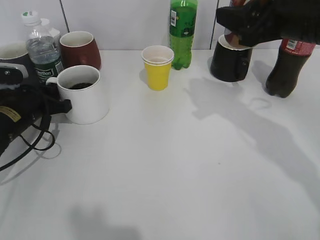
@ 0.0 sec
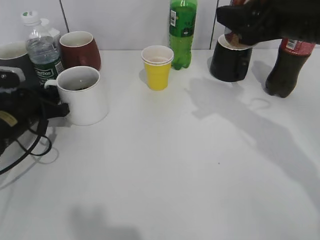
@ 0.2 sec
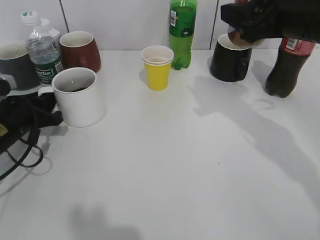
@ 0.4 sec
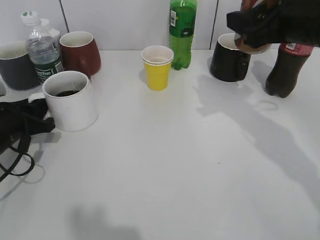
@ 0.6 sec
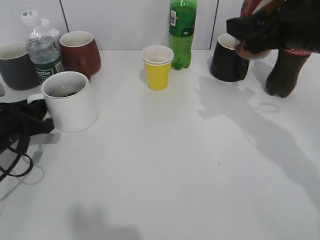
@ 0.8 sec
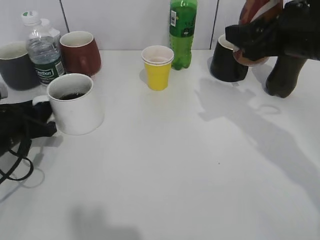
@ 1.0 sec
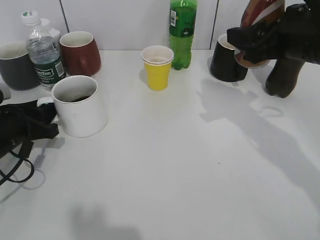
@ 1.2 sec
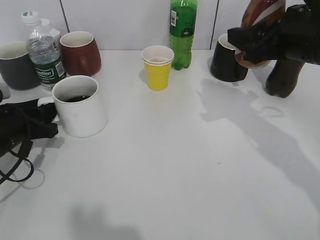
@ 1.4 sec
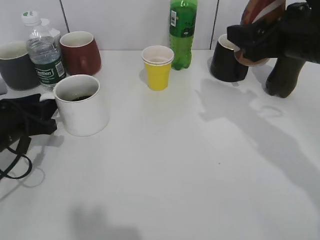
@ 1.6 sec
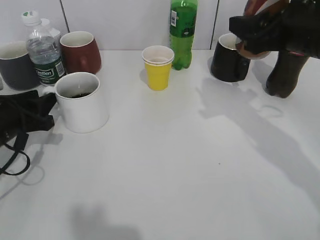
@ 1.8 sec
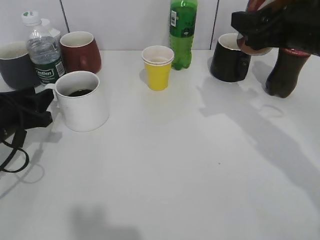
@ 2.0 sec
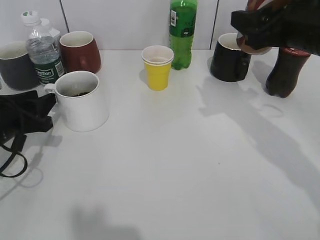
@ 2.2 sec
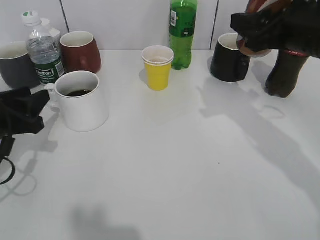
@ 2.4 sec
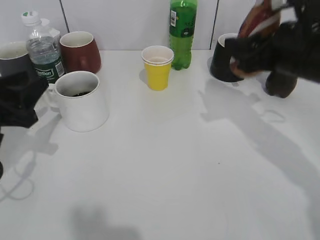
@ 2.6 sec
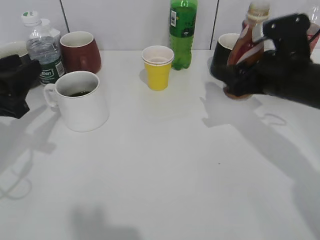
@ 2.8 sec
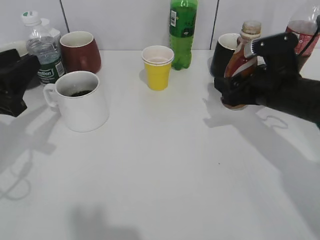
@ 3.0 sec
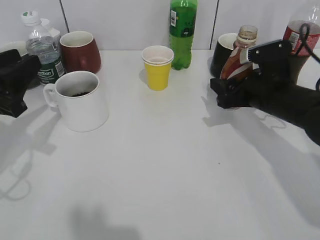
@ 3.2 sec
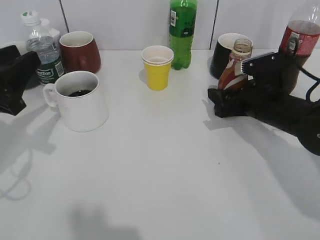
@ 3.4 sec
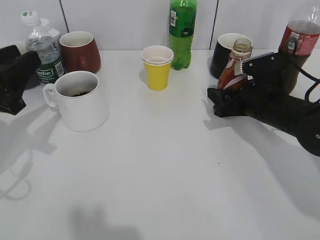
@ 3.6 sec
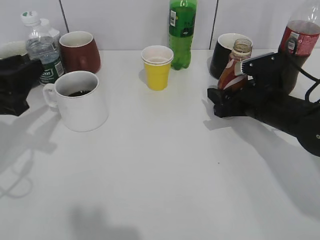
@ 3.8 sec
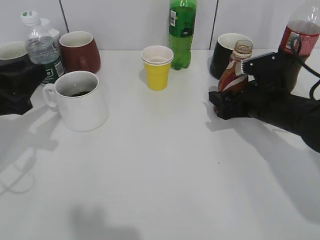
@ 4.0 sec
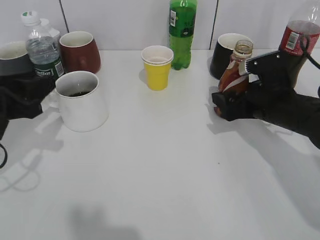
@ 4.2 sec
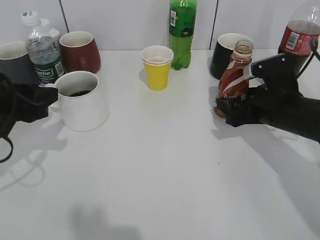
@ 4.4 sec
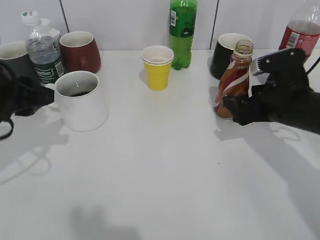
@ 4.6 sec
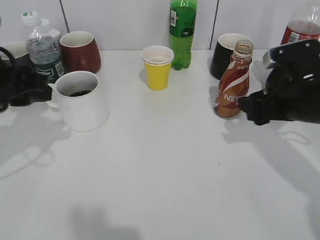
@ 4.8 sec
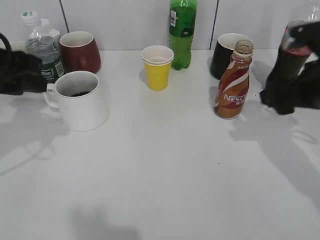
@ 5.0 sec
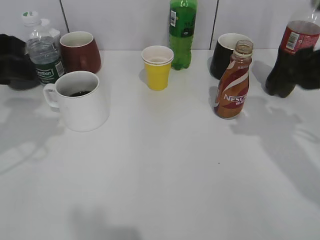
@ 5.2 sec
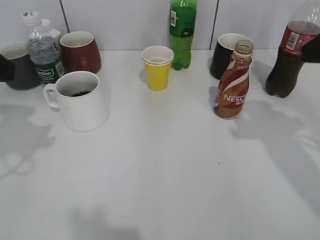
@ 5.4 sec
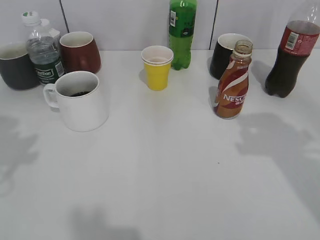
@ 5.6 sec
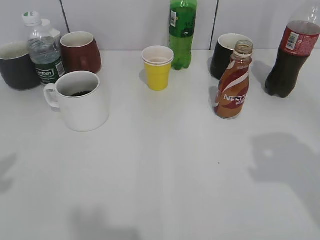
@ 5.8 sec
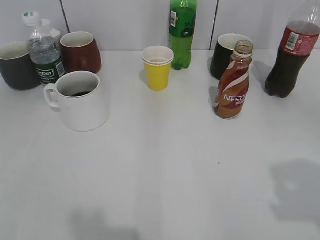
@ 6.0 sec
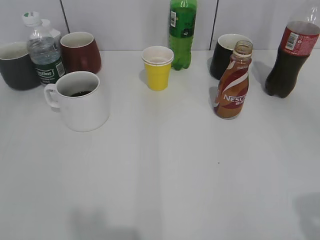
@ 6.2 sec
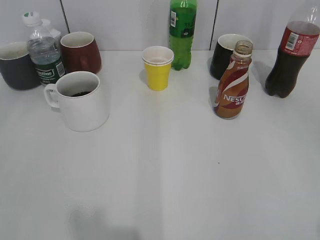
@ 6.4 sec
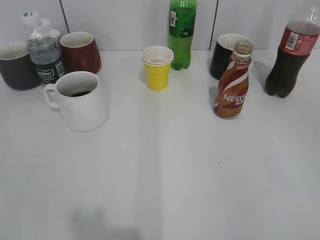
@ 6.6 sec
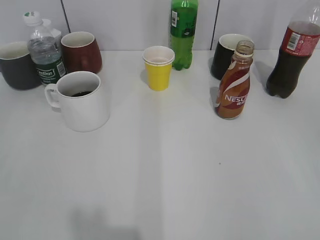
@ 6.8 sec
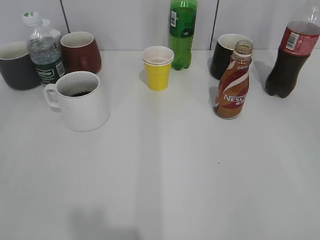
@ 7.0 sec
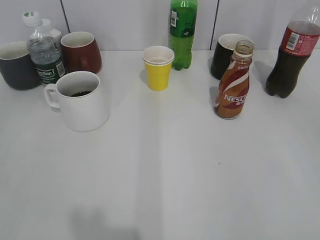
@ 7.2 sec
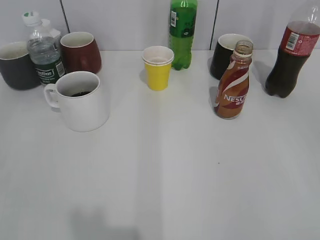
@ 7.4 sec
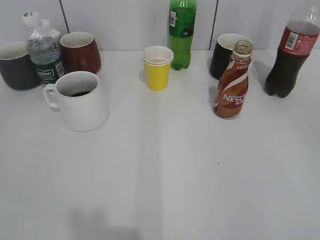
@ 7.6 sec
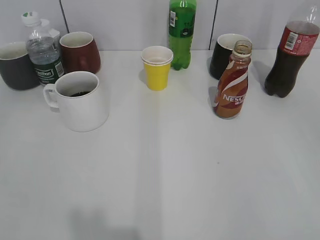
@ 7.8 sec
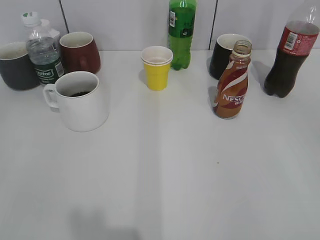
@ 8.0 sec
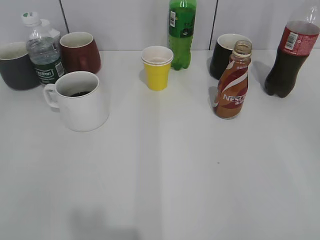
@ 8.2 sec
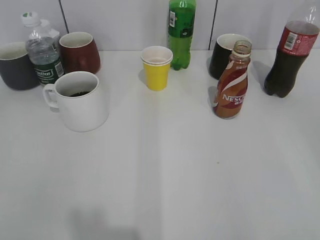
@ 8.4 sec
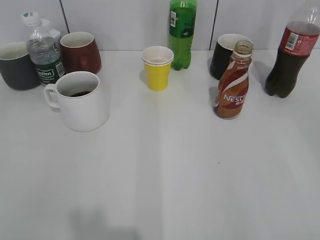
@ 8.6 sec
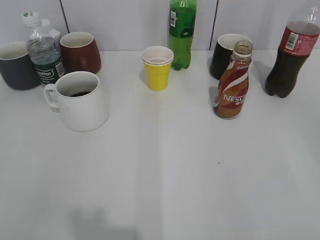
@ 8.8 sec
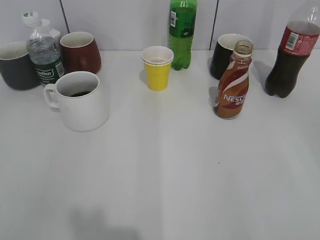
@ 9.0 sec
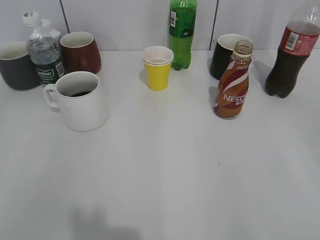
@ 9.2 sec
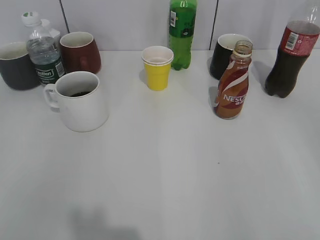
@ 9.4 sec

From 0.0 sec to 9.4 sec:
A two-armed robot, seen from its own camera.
Step, from 2.0 sec to 4.6 sec: Place the coffee bottle on the table with right gripper.
From 0.0 sec to 1.6 sec: The left gripper heads backward, covering about 5 cm, and opens up.
From 1.6 sec to 3.2 sec: The left gripper travels upward and backward by approximately 10 cm; the right gripper heads downward, covering approximately 10 cm.
From 3.2 sec to 4.8 sec: The left gripper shifts by about 5 cm. Meanwhile the right gripper changes place by approximately 5 cm, and opens its fingers.
From 4.8 sec to 6.2 sec: The right gripper goes about 25 cm backward and upward; the left gripper goes approximately 25 cm backward and to the left.
From 6.2 sec to 7.8 sec: The right gripper moves approximately 5 cm.

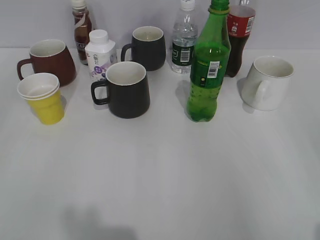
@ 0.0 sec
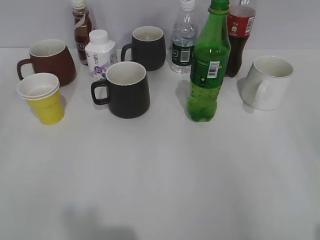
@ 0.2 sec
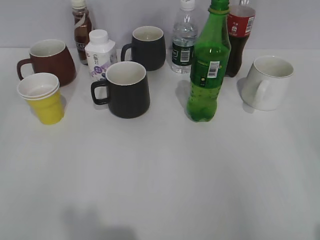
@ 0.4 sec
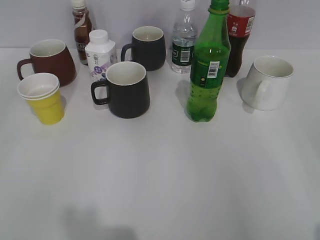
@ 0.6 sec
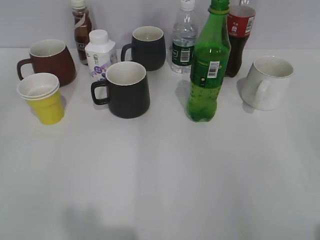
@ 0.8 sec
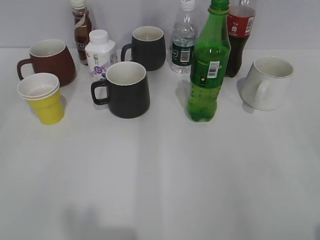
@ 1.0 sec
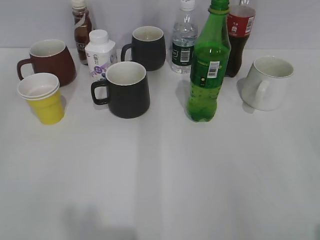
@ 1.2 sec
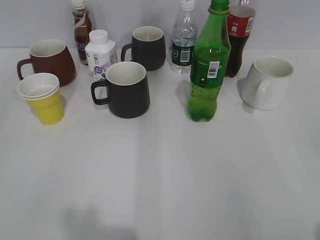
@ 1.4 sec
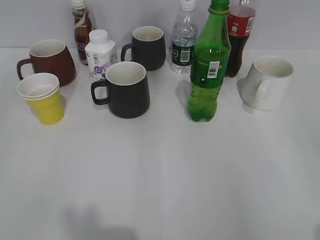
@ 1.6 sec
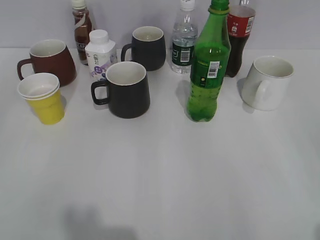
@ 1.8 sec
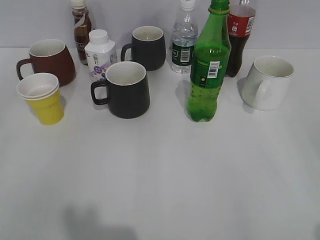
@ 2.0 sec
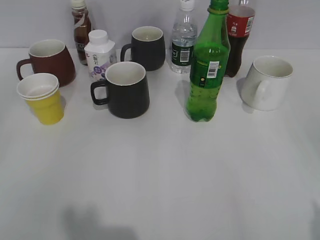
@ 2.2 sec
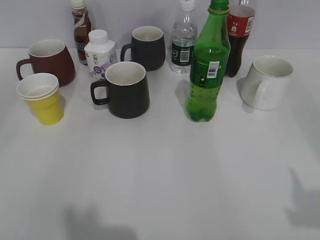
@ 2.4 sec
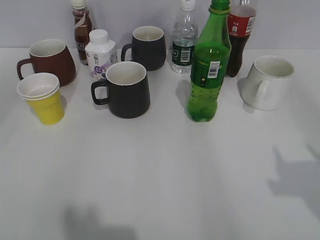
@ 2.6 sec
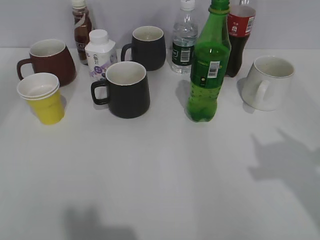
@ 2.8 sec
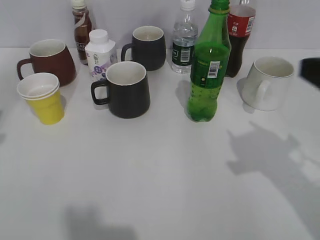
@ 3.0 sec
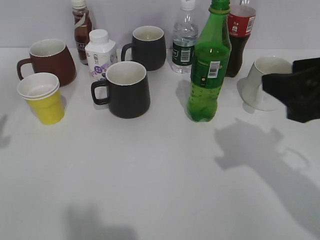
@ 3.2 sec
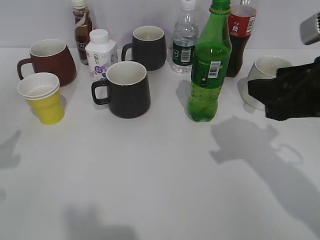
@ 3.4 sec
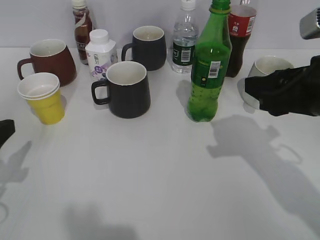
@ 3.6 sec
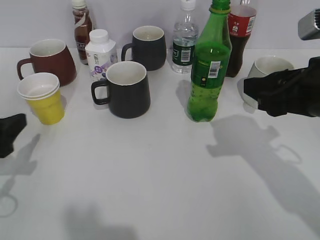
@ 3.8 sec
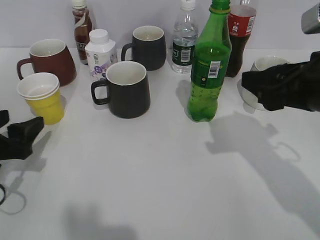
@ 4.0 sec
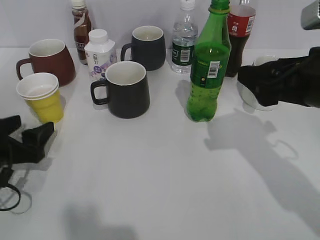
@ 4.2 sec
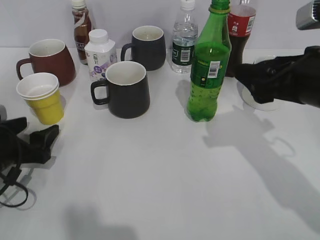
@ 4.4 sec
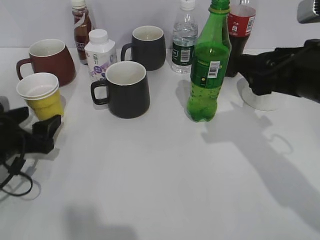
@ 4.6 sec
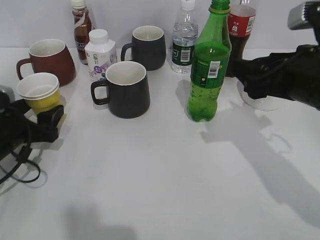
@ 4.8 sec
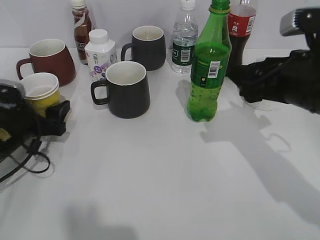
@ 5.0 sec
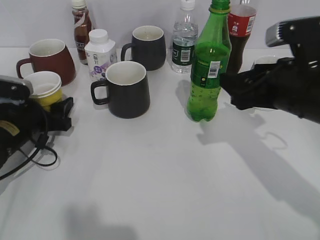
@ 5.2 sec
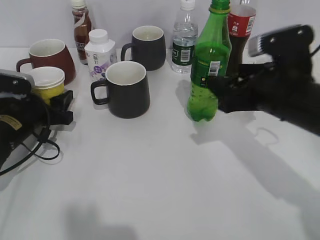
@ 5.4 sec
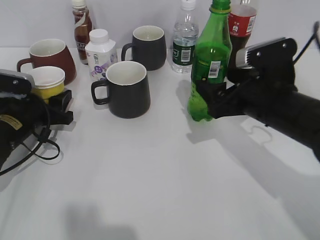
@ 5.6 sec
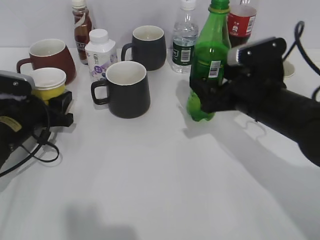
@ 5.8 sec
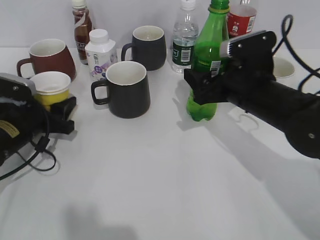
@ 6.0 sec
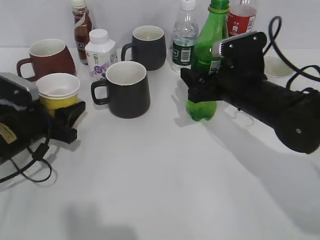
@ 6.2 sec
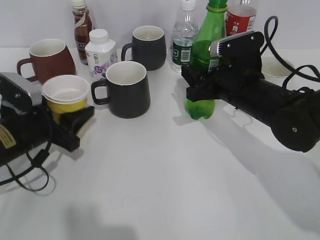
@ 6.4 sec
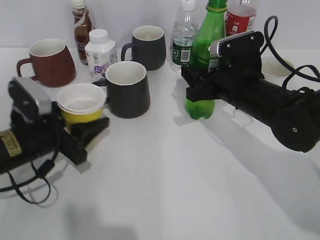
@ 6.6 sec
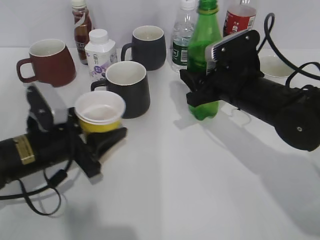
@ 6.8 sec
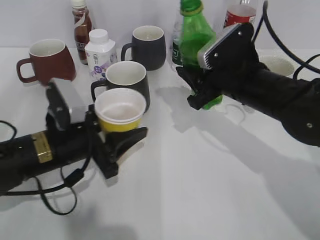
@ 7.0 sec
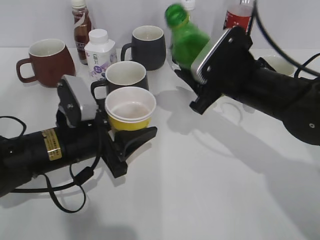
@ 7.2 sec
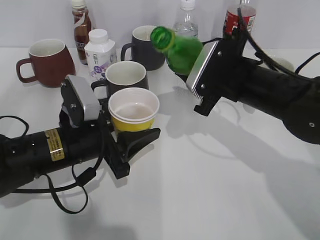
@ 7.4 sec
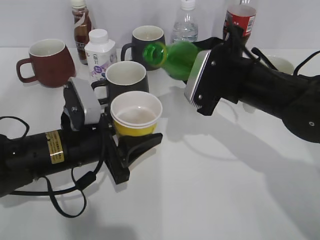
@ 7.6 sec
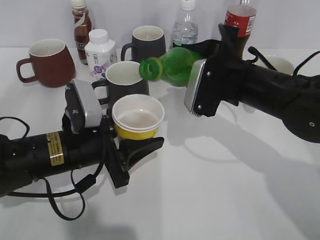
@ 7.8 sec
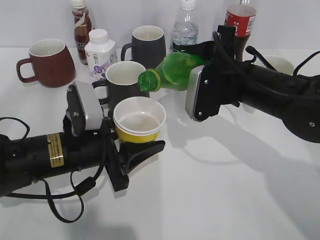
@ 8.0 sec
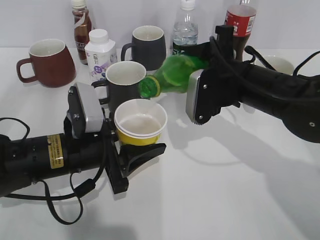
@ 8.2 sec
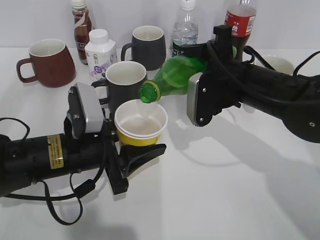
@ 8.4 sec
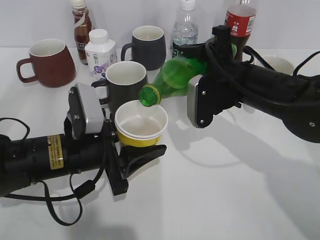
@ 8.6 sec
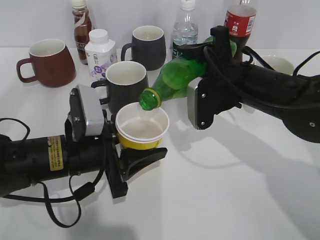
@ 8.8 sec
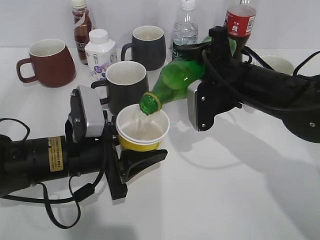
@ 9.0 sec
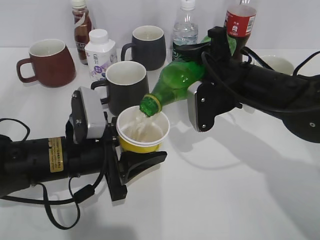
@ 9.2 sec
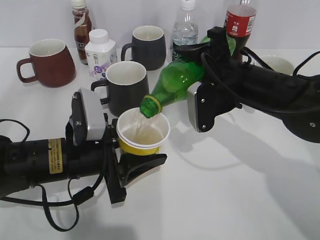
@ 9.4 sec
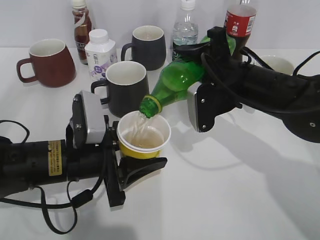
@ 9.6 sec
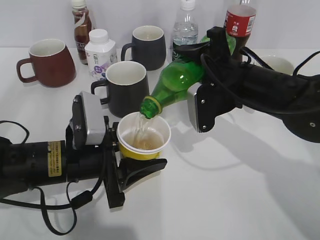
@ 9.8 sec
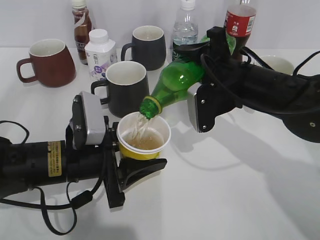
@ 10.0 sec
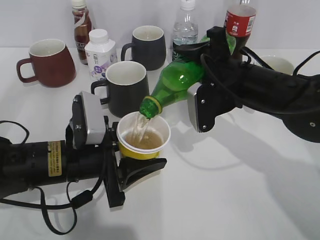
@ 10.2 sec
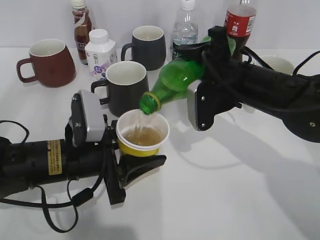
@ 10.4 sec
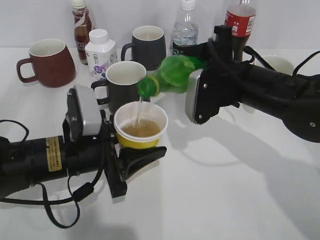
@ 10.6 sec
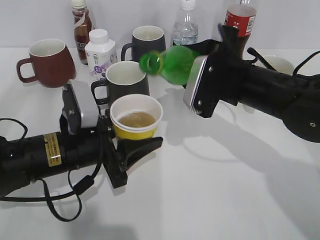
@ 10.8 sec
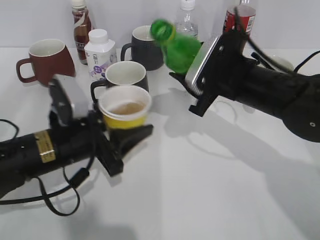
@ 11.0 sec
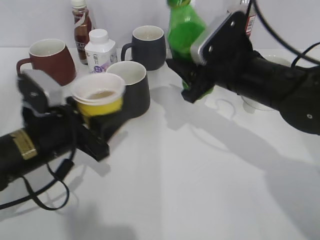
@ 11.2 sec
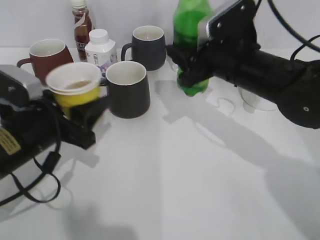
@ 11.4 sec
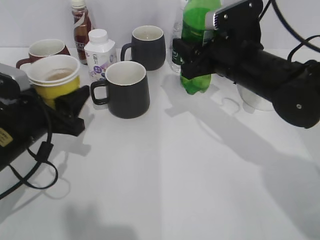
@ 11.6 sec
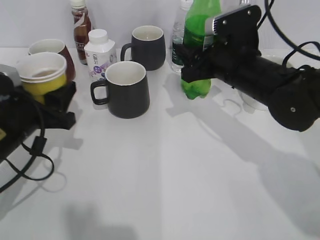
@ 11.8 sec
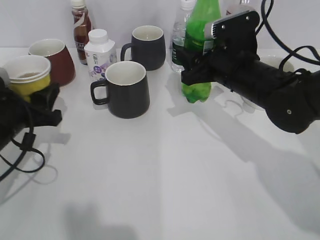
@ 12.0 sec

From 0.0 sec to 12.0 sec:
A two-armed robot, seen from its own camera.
Step, from 2.0 sec to 3.6 sec: Grasp the yellow paper cup with left gripper.
Step, from 3.8 sec to 6.4 sec: Grasp the bottle with sprite with right gripper.
Step, from 6.6 sec to 10.6 sec: Pour the sprite from bottle to cup with right gripper.
From 1.6 sec to 3.0 sec: The right gripper heads forward and to the left, covering some 15 cm, and closes.
From 3.0 sec to 4.4 sec: The right gripper heads forward and downward, covering roughly 10 cm, and opens its fingers. Meanwhile the left gripper shifts approximately 20 cm downward.
From 4.4 sec to 6.0 sec: The right gripper moves downward, forward and to the left, about 10 cm, while the left gripper travels forward by about 5 cm, and closes.
From 6.0 sec to 7.6 sec: The right gripper closes. The left gripper moves to the right and backward, some 15 cm.
From 9.0 sec to 10.4 sec: The two grippers keep their place.
From 10.4 sec to 12.0 sec: The left gripper moves to the left, about 10 cm.
